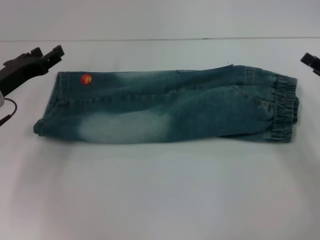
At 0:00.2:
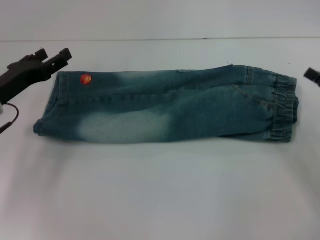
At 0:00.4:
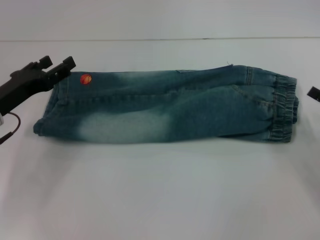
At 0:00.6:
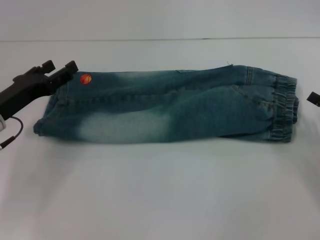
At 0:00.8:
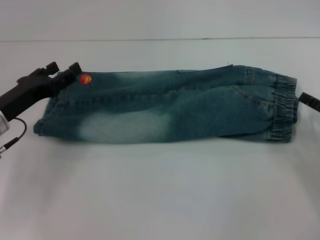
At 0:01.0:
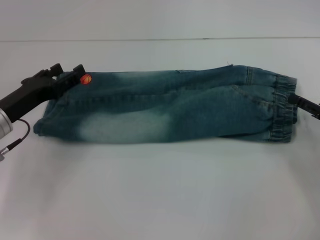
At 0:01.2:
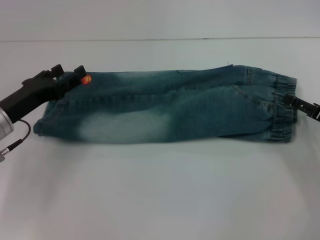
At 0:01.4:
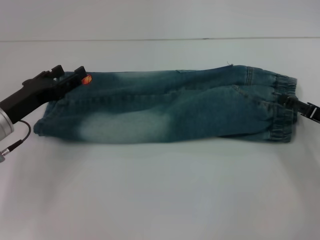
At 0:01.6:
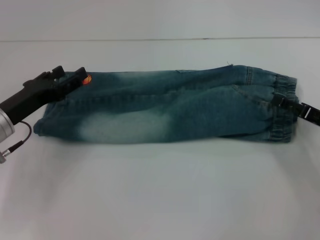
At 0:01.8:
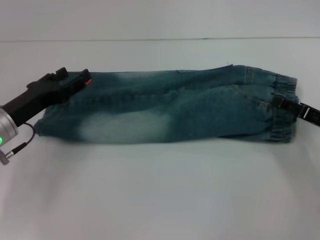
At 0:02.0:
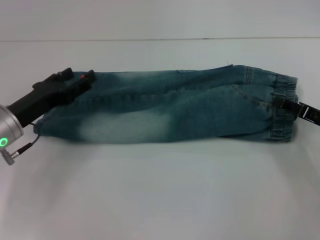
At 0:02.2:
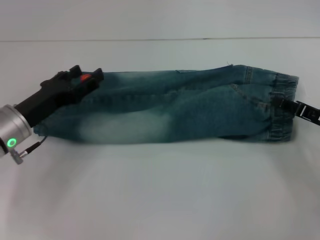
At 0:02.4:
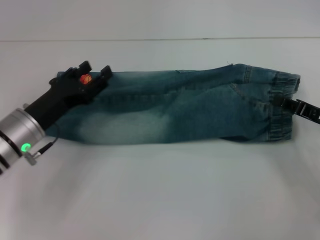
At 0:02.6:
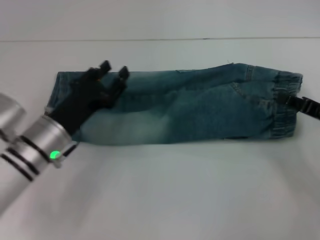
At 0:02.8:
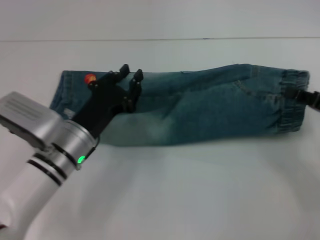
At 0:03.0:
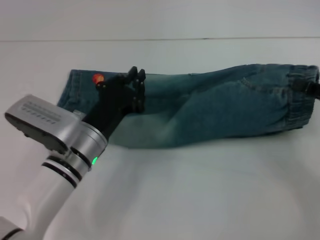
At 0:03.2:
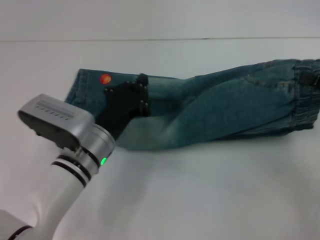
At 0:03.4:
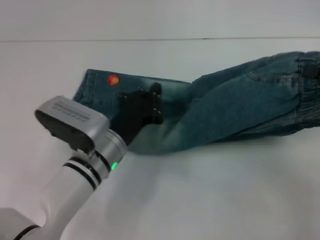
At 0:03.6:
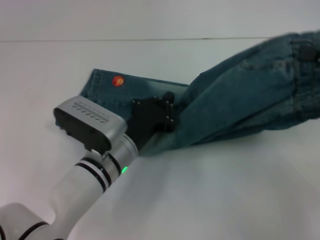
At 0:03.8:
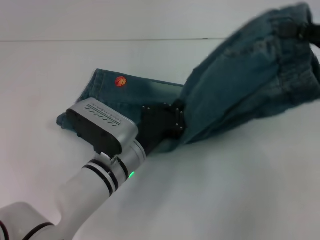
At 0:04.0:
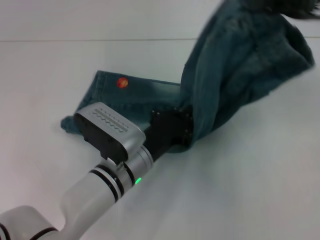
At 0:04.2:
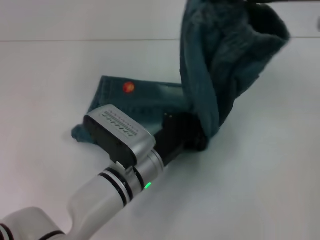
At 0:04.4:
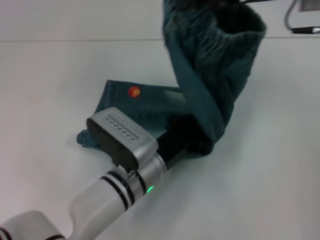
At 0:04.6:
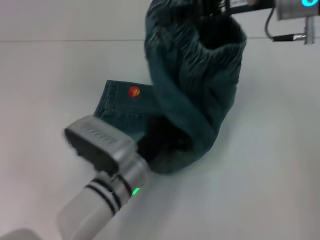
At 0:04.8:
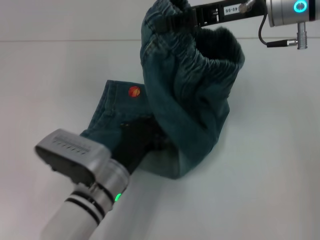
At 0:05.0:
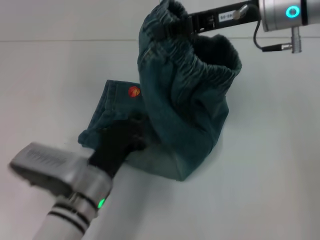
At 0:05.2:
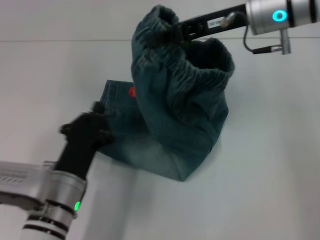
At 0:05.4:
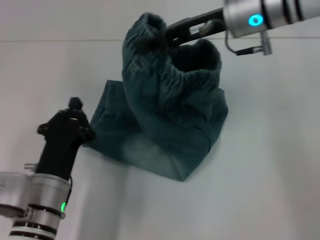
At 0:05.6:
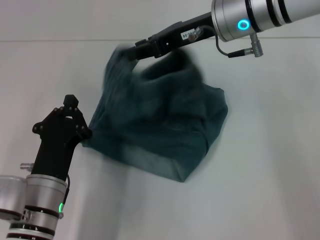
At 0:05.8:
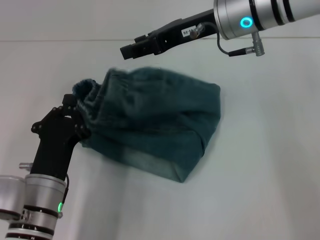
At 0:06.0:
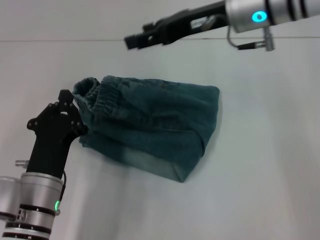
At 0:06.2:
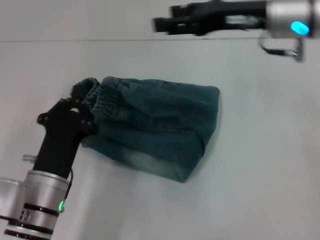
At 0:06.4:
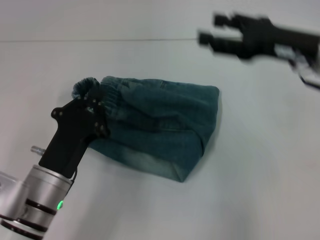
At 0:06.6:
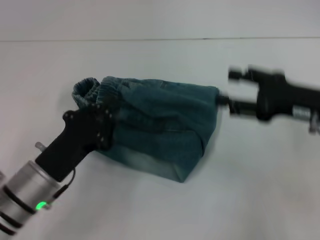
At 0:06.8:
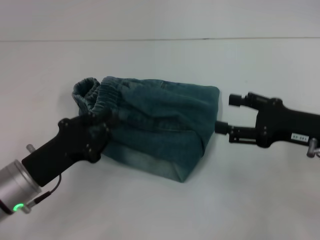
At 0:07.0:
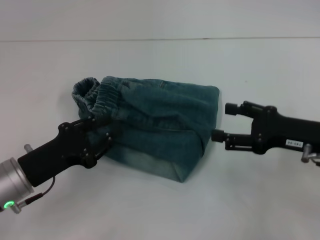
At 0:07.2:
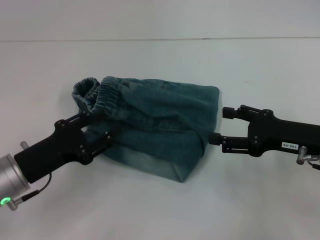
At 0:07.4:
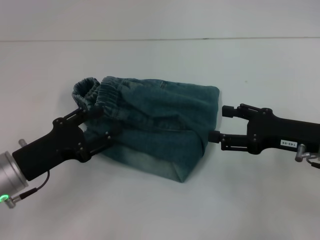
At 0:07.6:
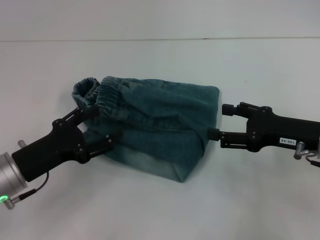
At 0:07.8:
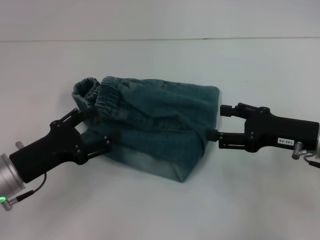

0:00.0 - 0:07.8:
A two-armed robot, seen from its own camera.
Step, 0:00.0 - 0:02.0: Grab the waistband with your right hand.
Step, 0:02.2 - 0:04.4: Press the middle of the pants with your left hand.
Step, 0:04.6 - 0:05.8: Fold to the left with your right hand.
0:00.0 - 0:01.6: The left gripper opens its fingers, while the right gripper opens its fingers.
0:01.6 - 0:03.2: The left gripper is displaced to the right by roughly 15 cm, and closes, while the right gripper is displaced upward by some 10 cm, and closes up.
0:03.2 - 0:04.6: The right gripper is displaced to the left, upward and forward by about 25 cm. Meanwhile the left gripper moves to the right, about 5 cm.
0:04.6 - 0:06.2: The left gripper goes about 10 cm to the left. Meanwhile the right gripper opens its fingers.
0:06.2 - 0:07.8: The right gripper moves downward, backward and to the right, roughly 20 cm, while the left gripper moves to the left, about 10 cm, and opens up.
